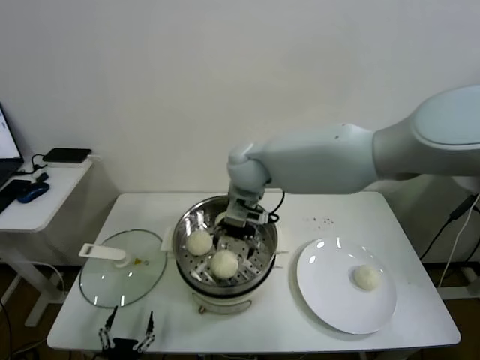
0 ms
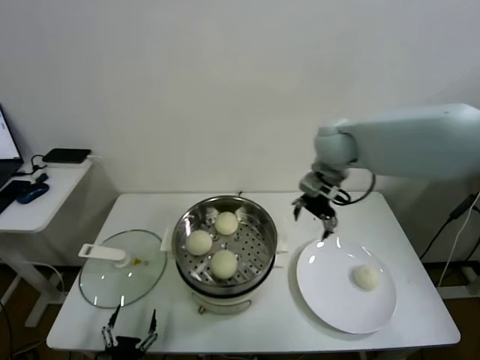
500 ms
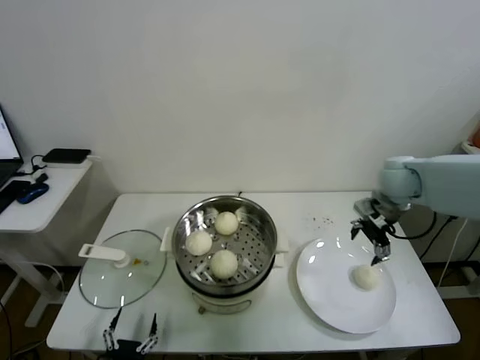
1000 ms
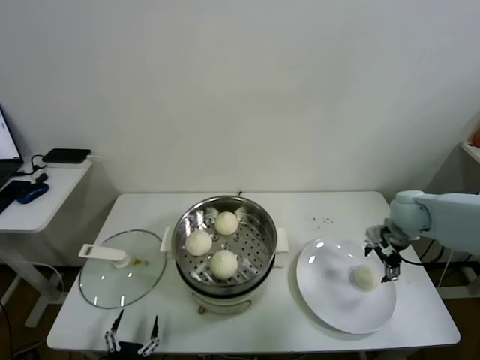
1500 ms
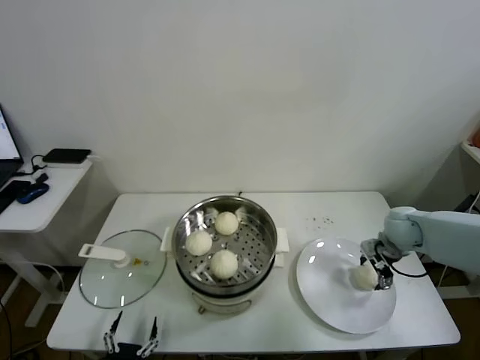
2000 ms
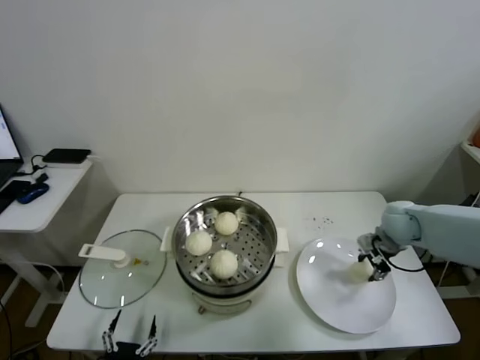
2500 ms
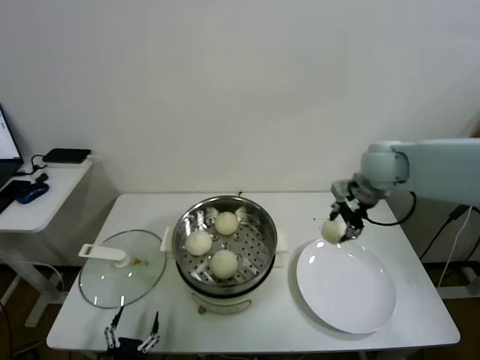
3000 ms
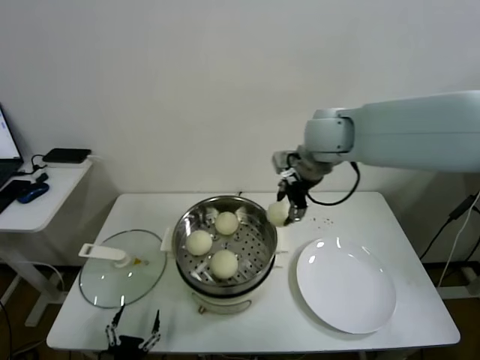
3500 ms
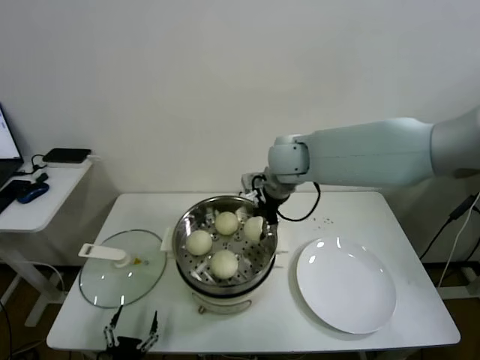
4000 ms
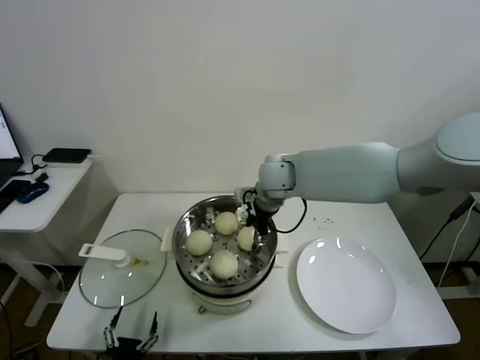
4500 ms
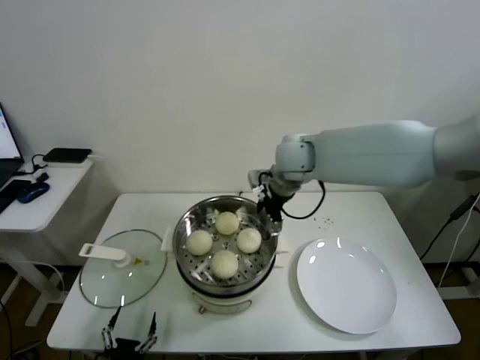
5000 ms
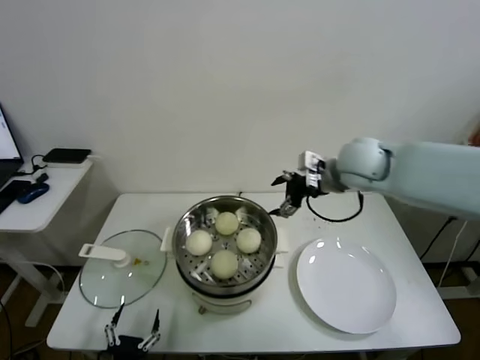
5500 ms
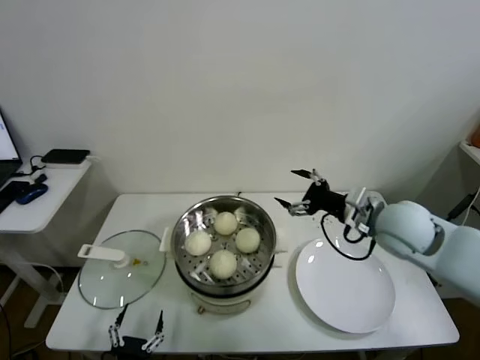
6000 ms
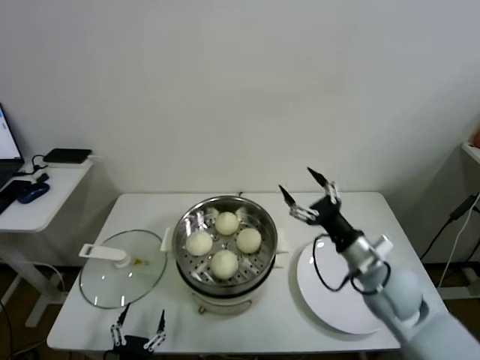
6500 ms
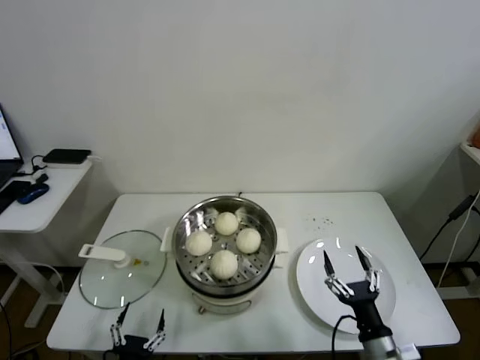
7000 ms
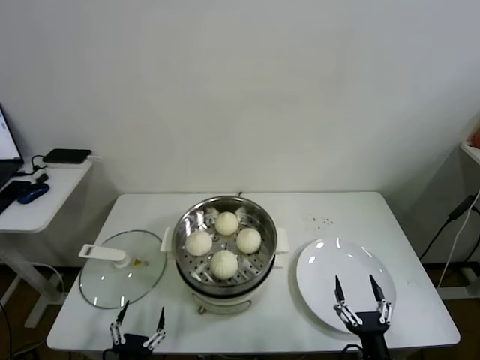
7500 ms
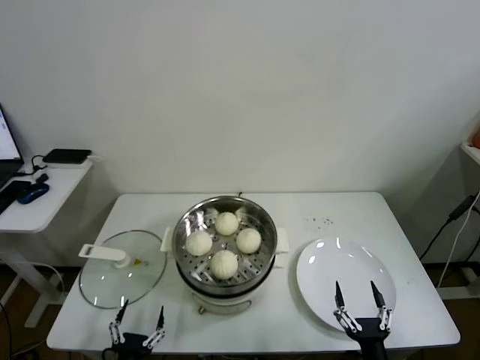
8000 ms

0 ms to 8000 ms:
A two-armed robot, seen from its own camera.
Task of the whole recording: take steamed baozi put them in steamer.
Step, 0 ms to 2000 ms: Grasp the baozi in the plate with right gripper.
Step, 2500 ms to 4500 ms: Place the baozi on the steamer with right gripper.
0 ms to 2000 ms: The right gripper goes some 40 cm to the right and downward.
2000 ms to 4000 ms: The right gripper is displaced to the left and upward by about 35 cm, and closes up.
4000 ms to 6000 ms: The right gripper shifts some 25 cm to the right and backward, and opens.
6000 ms to 8000 ms: The right gripper heads backward and downward, covering roughly 40 cm.

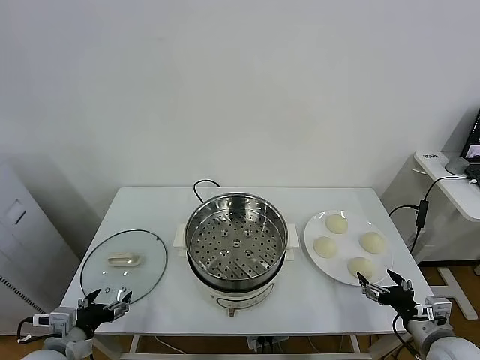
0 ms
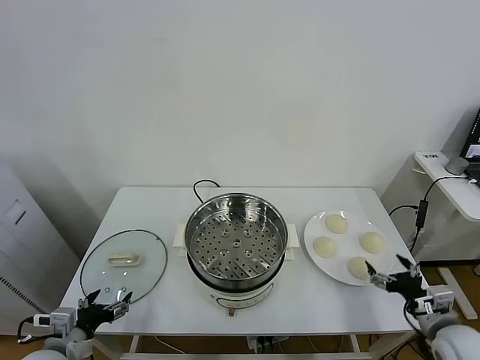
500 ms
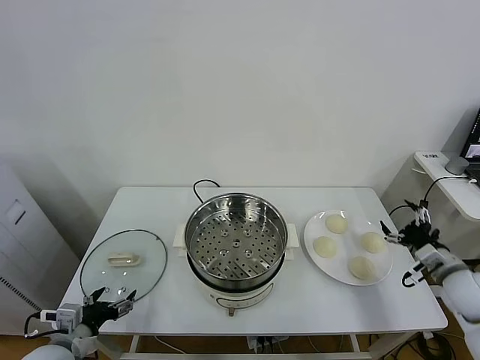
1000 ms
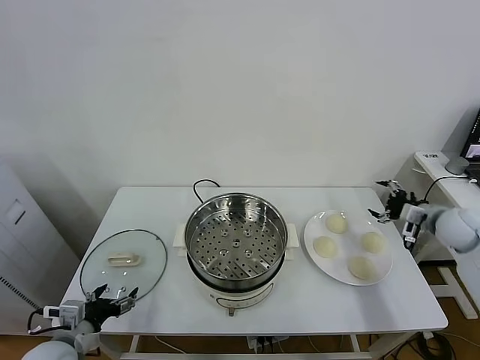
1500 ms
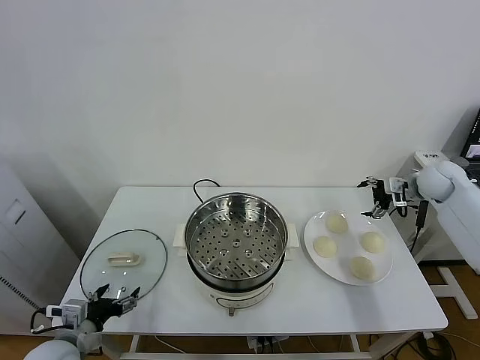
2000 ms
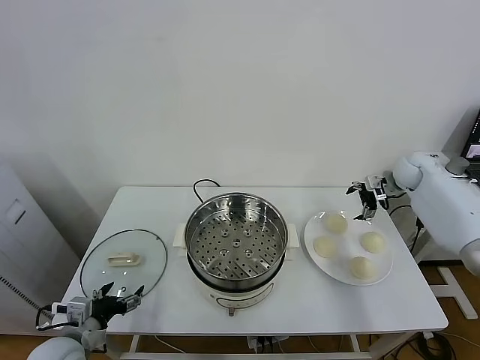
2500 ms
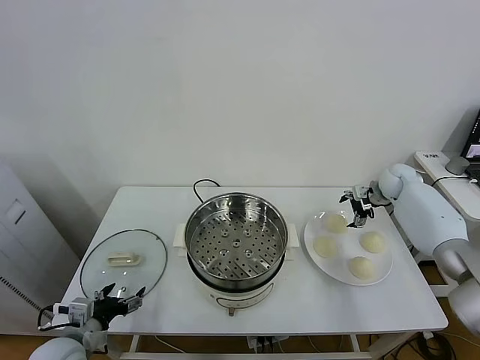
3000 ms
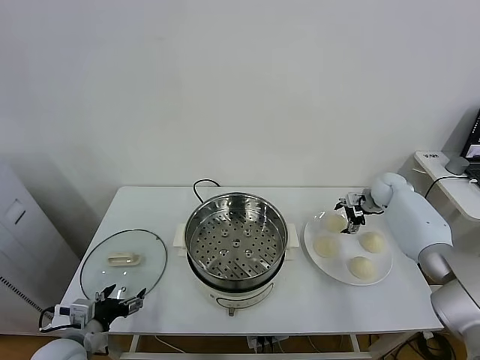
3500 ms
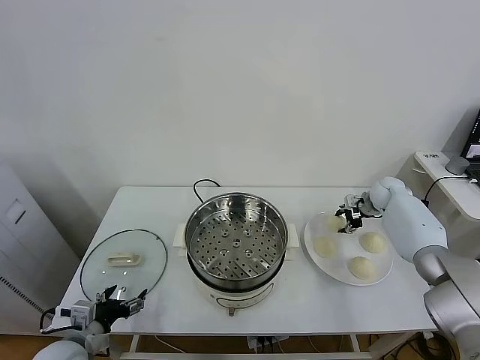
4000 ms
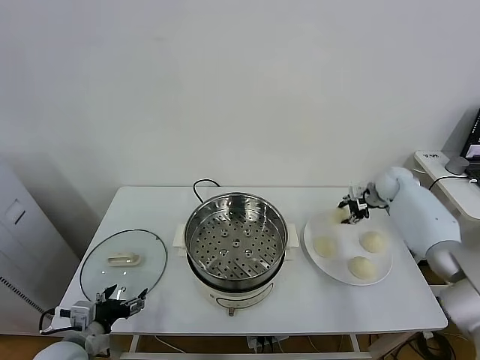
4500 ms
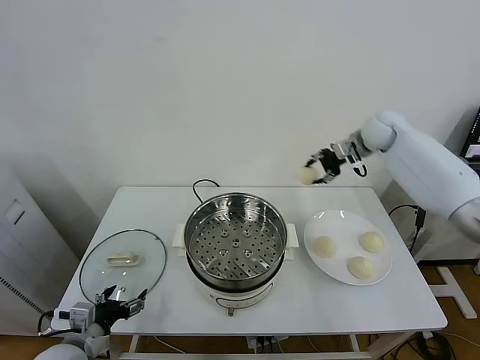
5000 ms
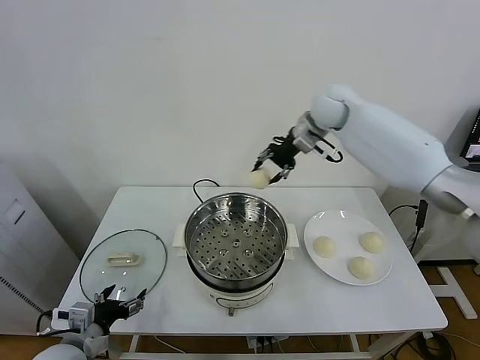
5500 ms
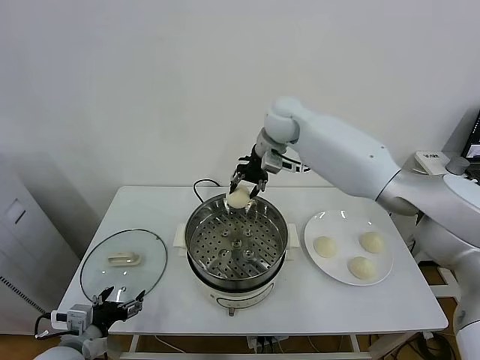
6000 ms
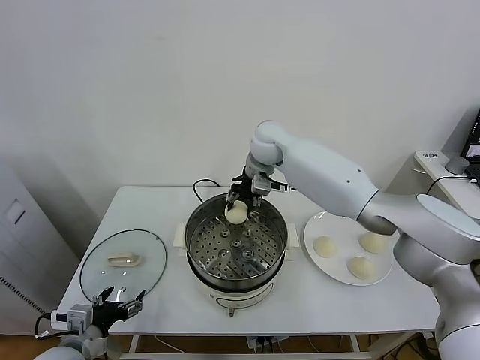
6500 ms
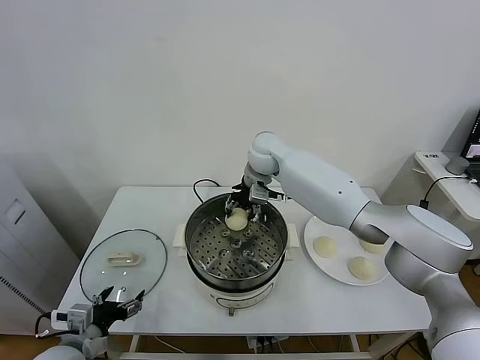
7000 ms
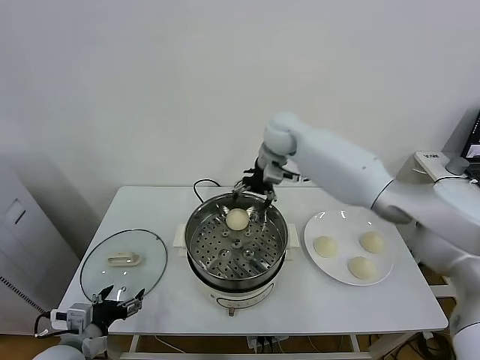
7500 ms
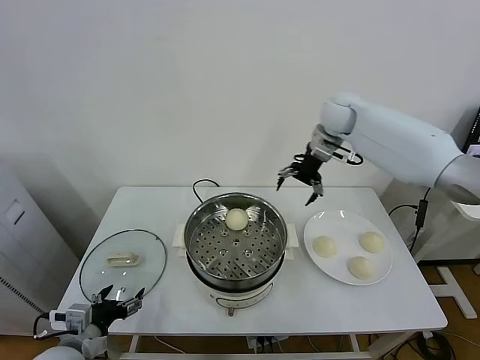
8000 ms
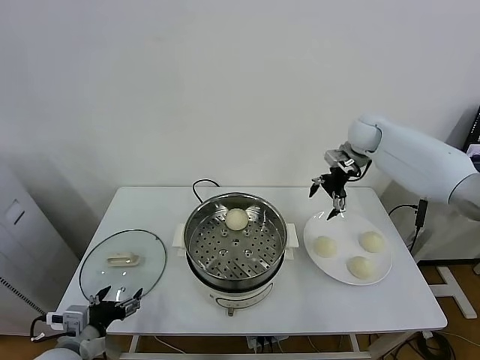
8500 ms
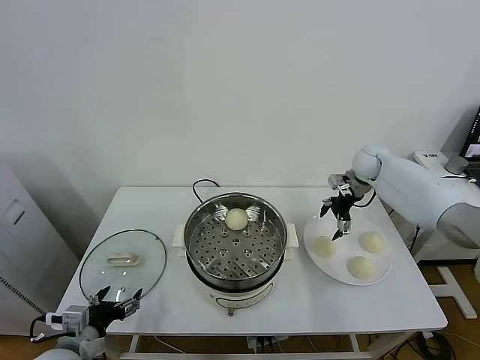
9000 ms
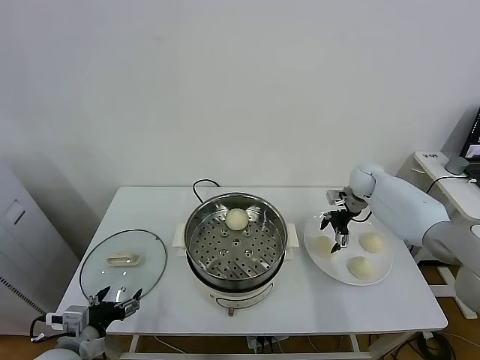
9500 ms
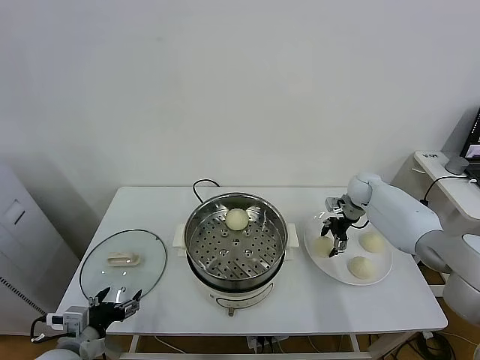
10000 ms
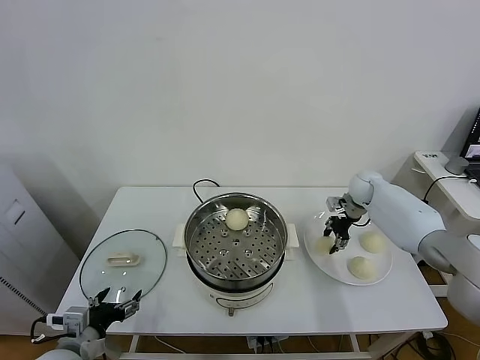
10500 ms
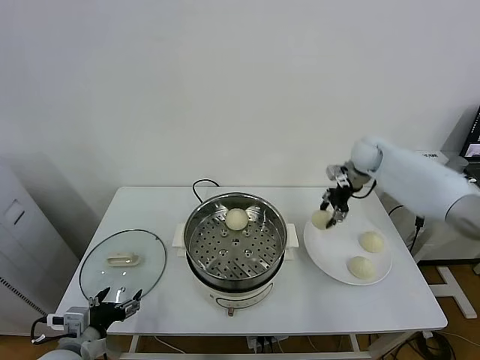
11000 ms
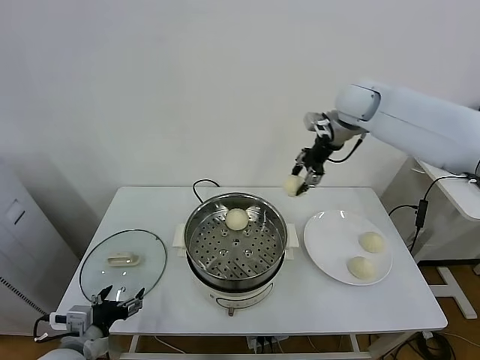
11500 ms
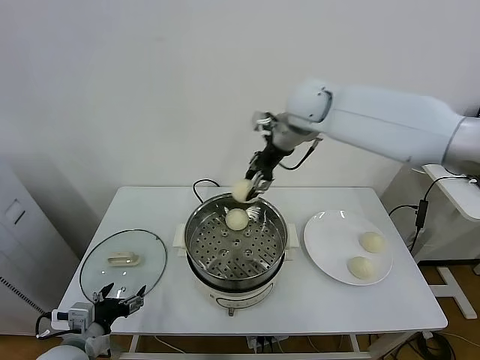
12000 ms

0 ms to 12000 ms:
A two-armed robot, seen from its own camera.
Task of the whole recording: take steamed baozi put them in steamer.
Step, 0 ms to 4000 ms: Grasp the baozi in the plate with right gripper.
Step, 4500 ms to 7500 ms: Place the baozi on the steamer with right gripper.
Step, 8000 ms to 10000 ms: Grasp the baozi in the plate with right gripper.
2000 ms to 4000 ms: The right gripper travels downward by approximately 10 cm, and closes.
4000 ms to 6000 ms: The right gripper moves to the left and upward, some 40 cm.
6000 ms to 8000 ms: The right gripper travels to the right by roughly 15 cm, and opens its fingers.
8000 ms to 10000 ms: The right gripper travels downward and to the right by roughly 25 cm.
10000 ms to 12000 ms: The right gripper goes approximately 35 cm upward and to the left, and closes its fingers.

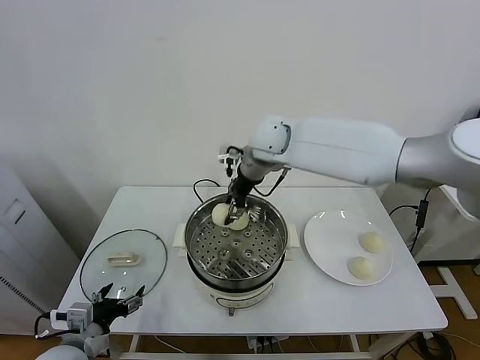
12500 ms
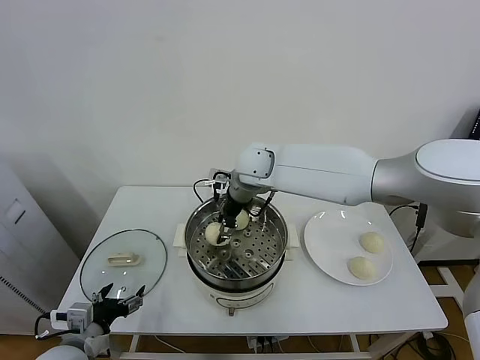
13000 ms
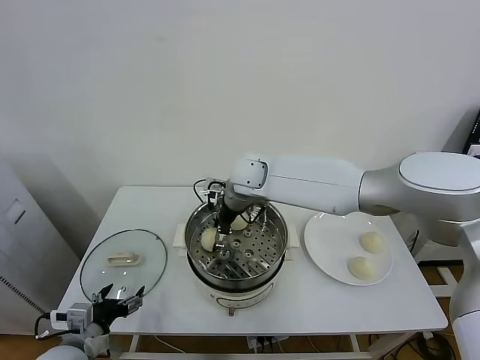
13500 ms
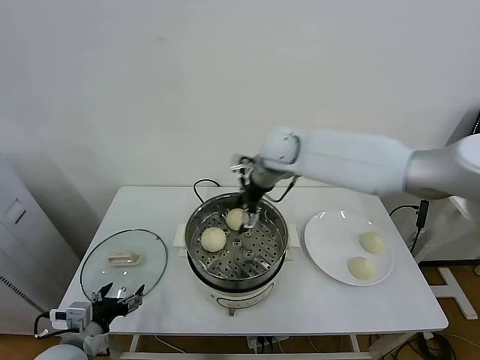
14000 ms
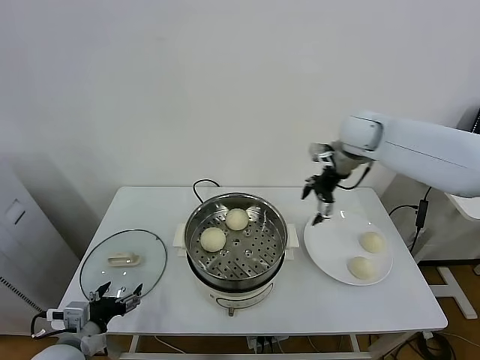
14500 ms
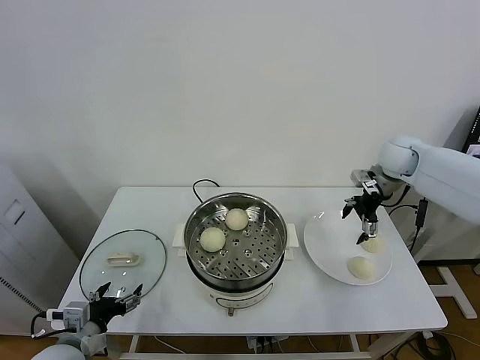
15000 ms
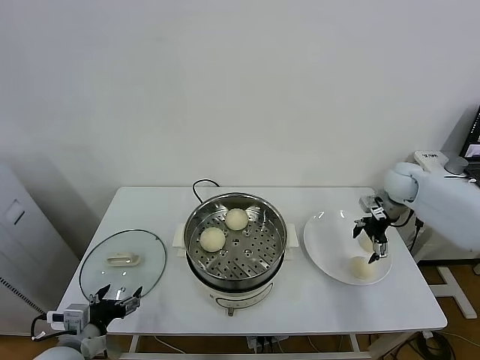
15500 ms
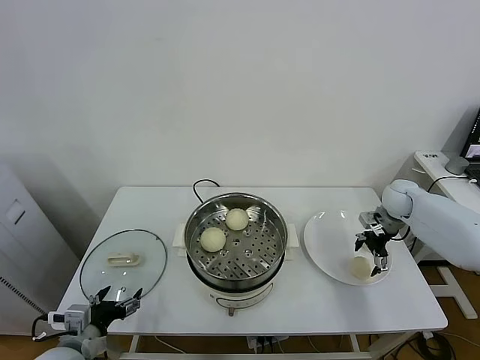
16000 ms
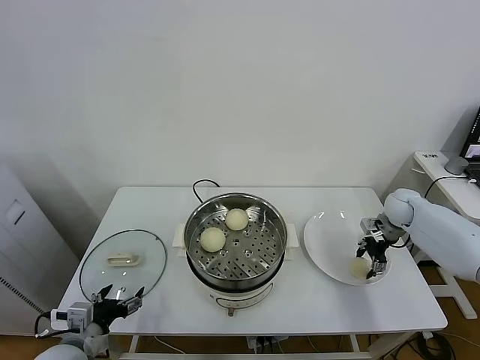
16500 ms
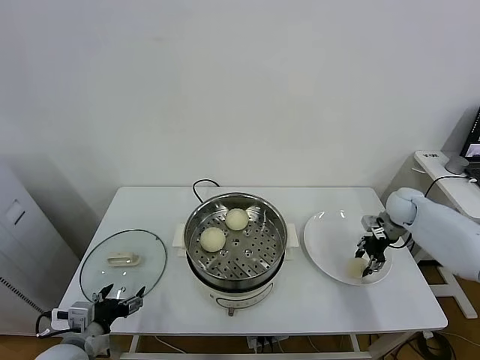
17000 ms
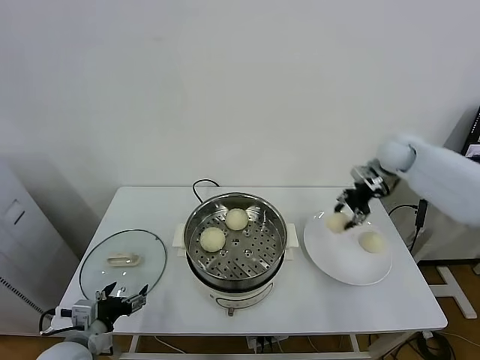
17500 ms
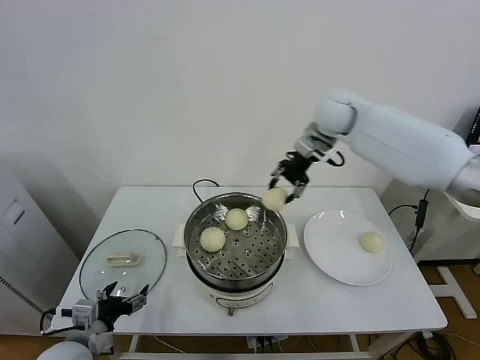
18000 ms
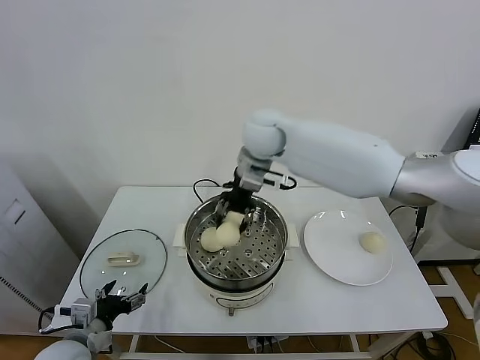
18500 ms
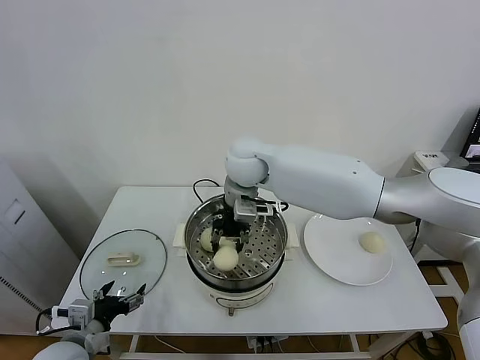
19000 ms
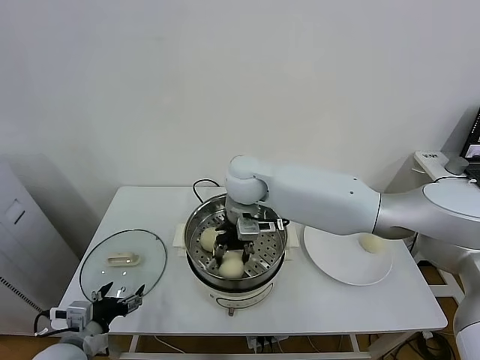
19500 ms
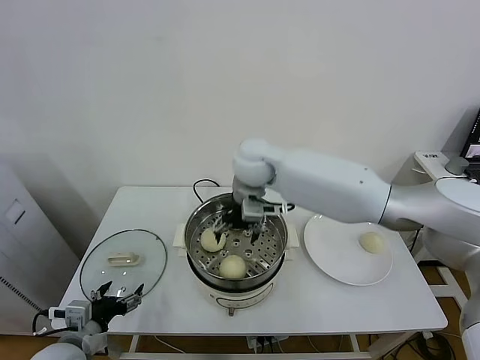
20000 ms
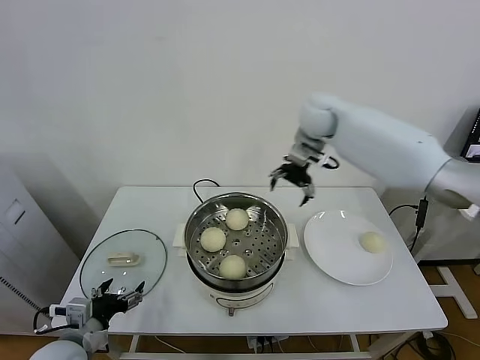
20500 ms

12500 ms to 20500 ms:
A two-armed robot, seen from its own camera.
Task of the whole recording: take steamed baozi put them in steamer.
Step, 14000 ms to 16500 ms: Grasp the baozi in the plate with right gripper.
Step, 17000 ms to 20000 ms: Place the baozi on the steamer with right gripper.
12500 ms to 14500 ms: The right gripper moves to the right, some 25 cm, and opens up.
14500 ms to 16500 ms: The right gripper moves downward and to the right, about 25 cm, and closes.
16500 ms to 18500 ms: The right gripper travels to the left and upward by roughly 50 cm.
18500 ms to 20500 ms: The right gripper goes some 15 cm to the right and forward, and opens its fingers.
